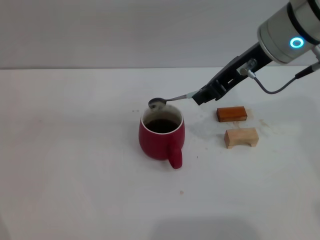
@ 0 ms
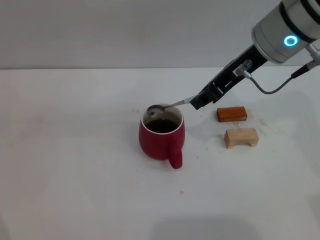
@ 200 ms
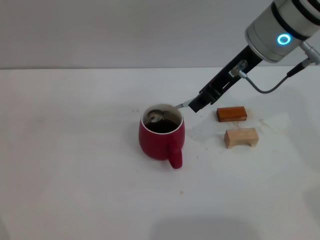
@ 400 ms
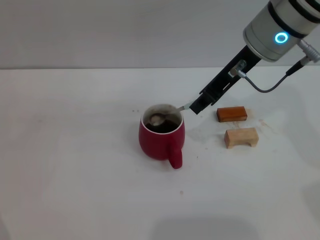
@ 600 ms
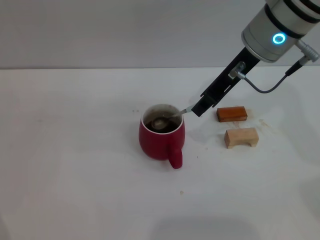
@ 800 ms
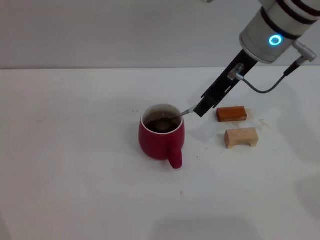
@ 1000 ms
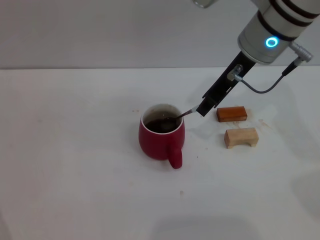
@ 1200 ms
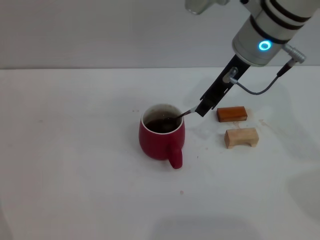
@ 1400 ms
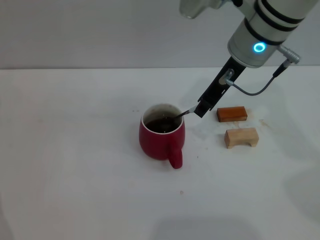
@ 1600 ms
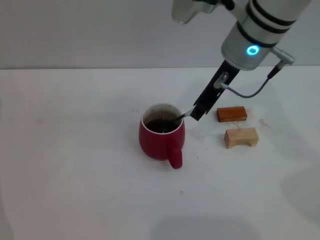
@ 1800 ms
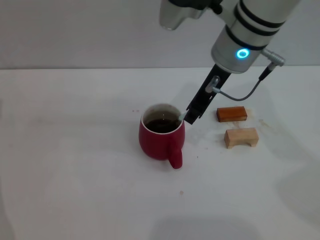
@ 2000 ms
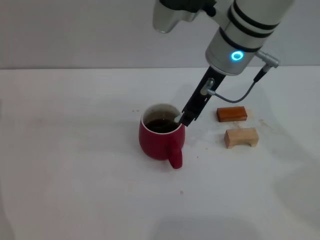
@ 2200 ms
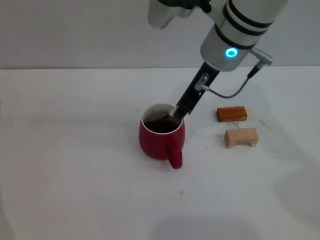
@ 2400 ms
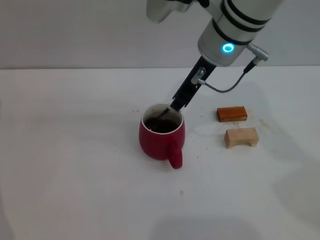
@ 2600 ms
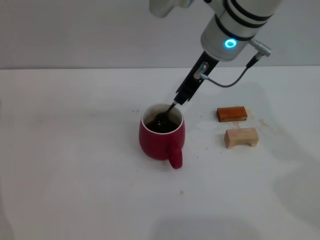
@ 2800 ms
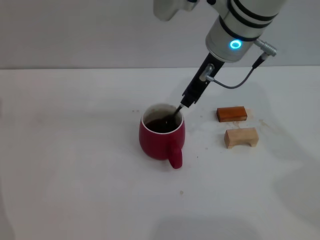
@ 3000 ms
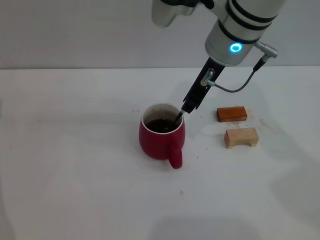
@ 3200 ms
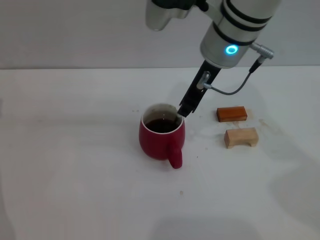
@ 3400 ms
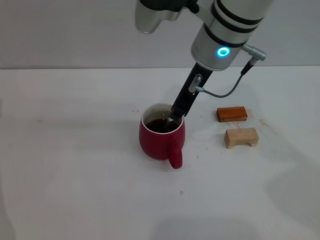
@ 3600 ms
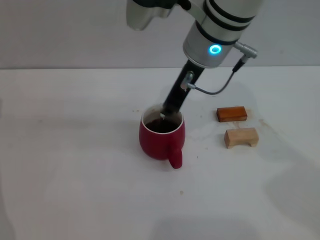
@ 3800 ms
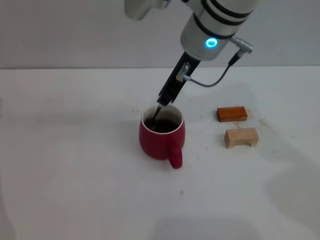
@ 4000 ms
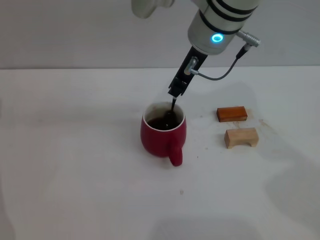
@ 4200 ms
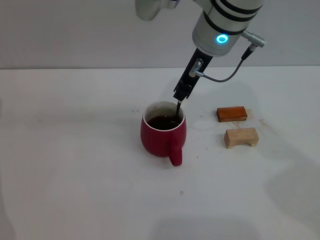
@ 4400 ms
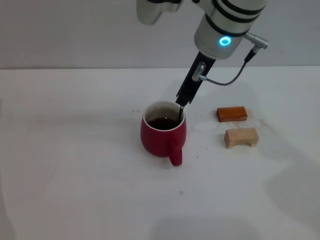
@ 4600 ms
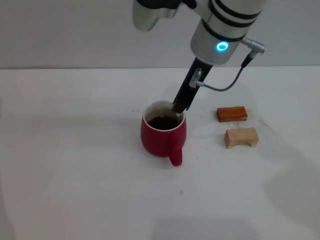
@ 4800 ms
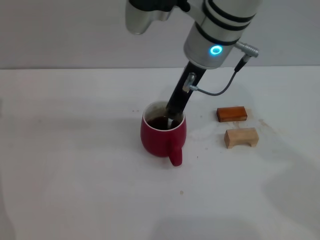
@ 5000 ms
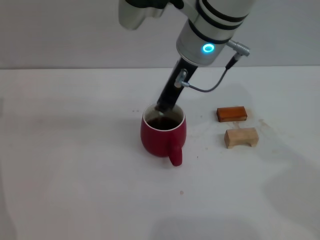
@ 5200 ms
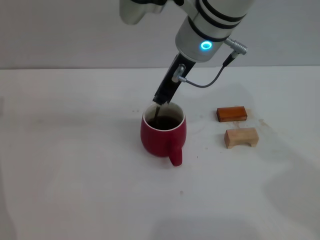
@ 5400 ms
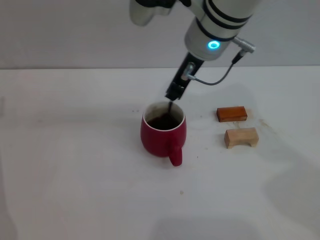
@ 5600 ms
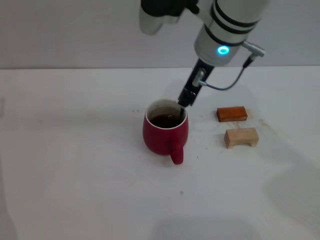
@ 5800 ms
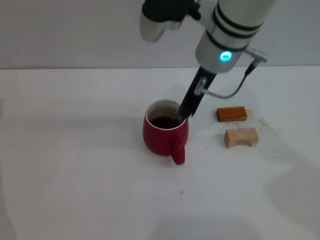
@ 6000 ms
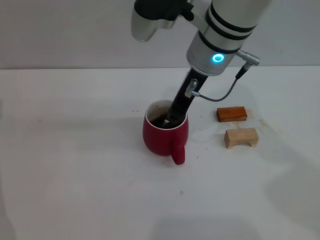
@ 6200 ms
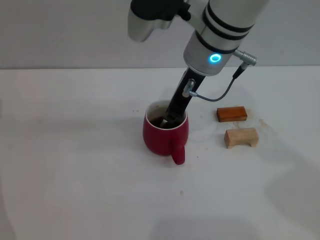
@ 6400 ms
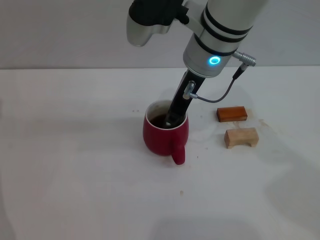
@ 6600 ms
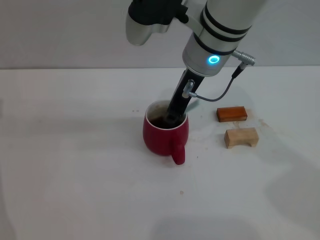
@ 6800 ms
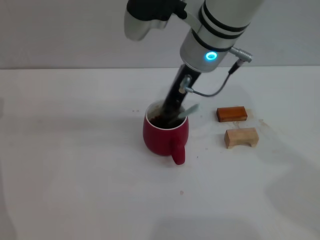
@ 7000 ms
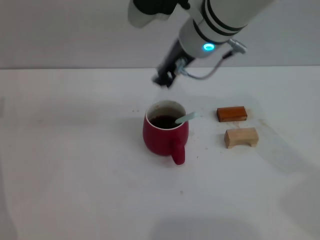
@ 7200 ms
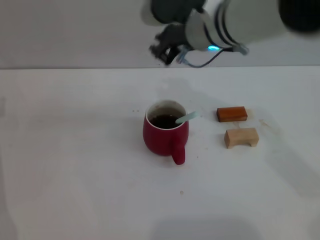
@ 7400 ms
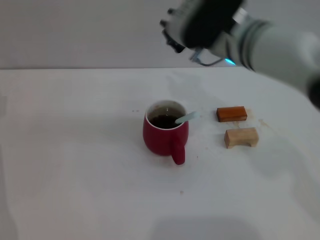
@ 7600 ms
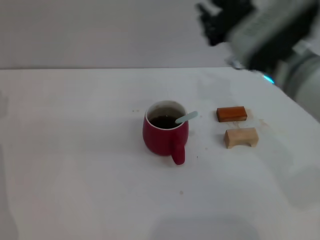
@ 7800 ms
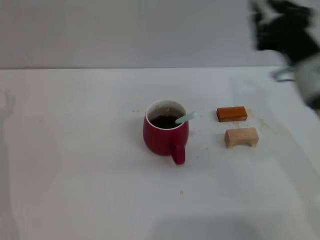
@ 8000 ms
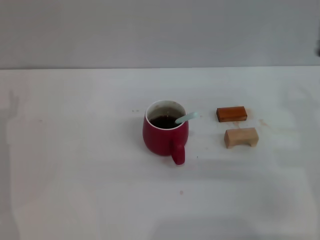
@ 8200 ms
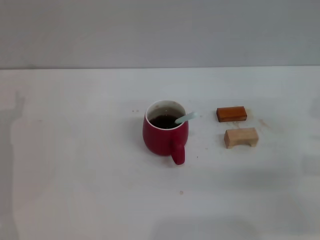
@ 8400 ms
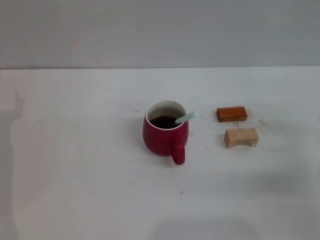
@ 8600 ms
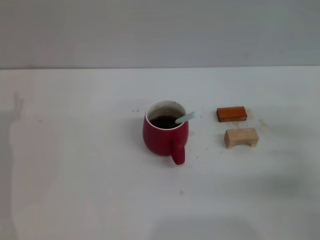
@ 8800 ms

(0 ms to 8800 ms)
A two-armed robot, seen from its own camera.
Task of the whole recording: Move the red cup to the center, lift the blue spoon, stir it three times in the cup, and put the spoon into the cup.
Step, 0 ms - 7000 ms: Stir the coffee with right gripper.
0 ms - 1400 ms: The right gripper moves approximately 5 cm.
1400 ms - 3000 ms: The grippers stay close to where they were, moving slightly.
3000 ms - 5800 ms: The grippers move only a little.
7400 ms - 8800 ms: The right gripper is displaced to the right, downward and backward by roughly 30 cm.
